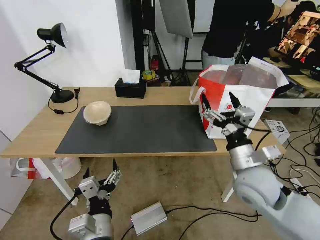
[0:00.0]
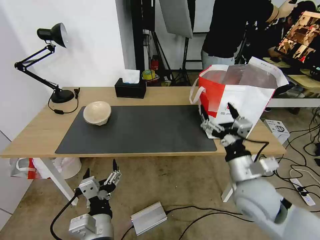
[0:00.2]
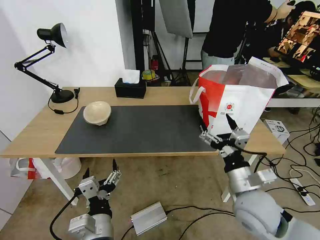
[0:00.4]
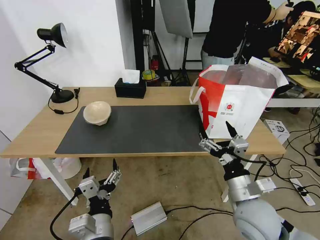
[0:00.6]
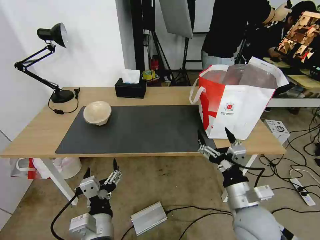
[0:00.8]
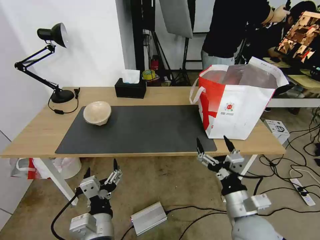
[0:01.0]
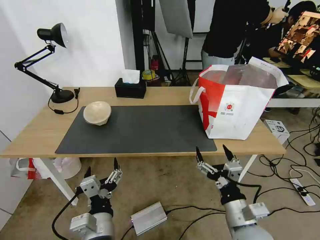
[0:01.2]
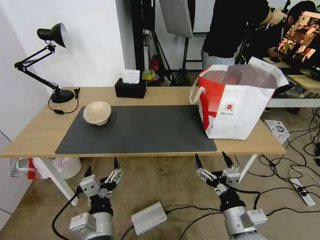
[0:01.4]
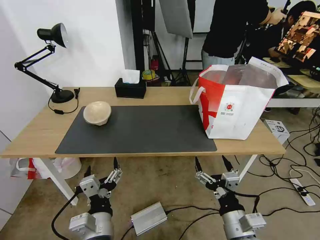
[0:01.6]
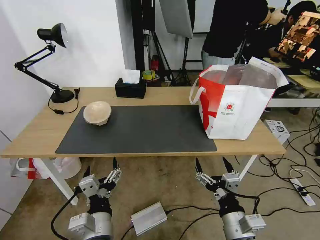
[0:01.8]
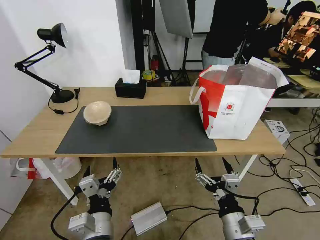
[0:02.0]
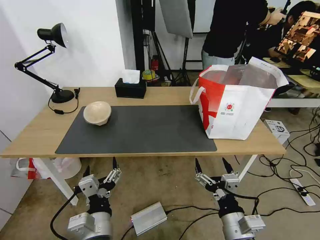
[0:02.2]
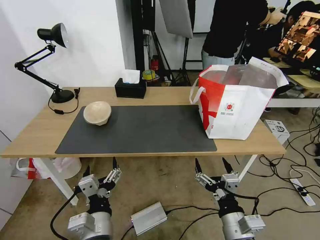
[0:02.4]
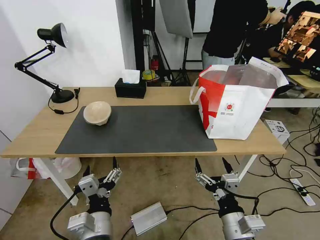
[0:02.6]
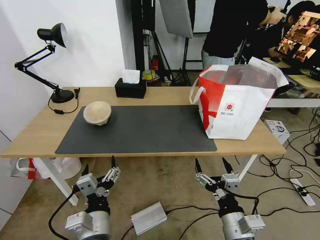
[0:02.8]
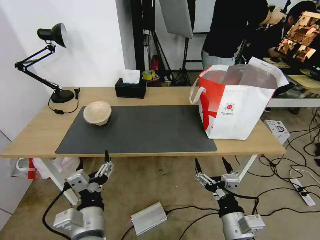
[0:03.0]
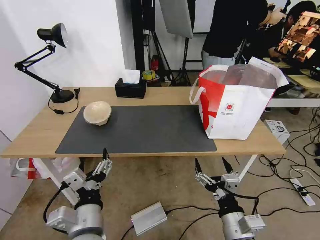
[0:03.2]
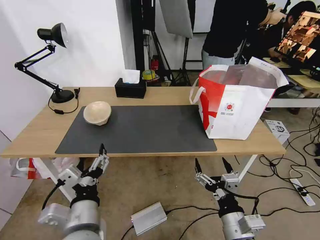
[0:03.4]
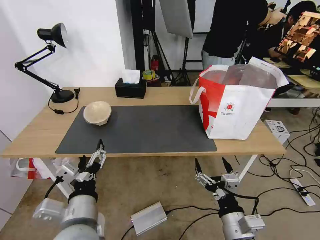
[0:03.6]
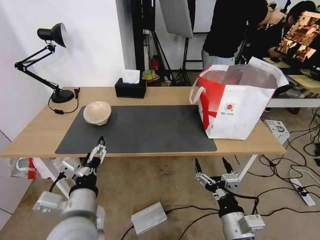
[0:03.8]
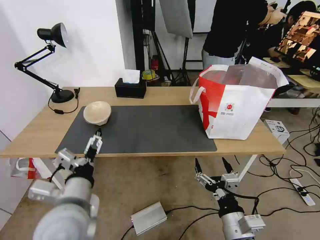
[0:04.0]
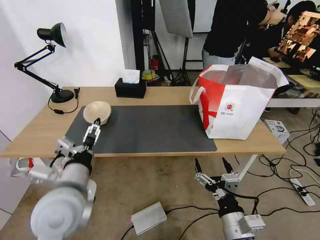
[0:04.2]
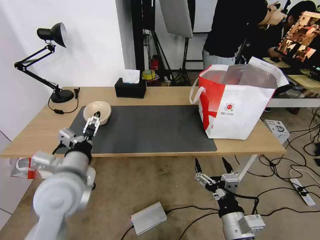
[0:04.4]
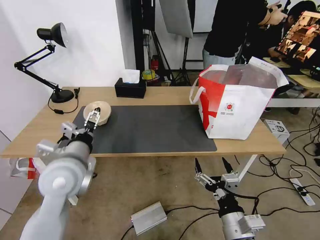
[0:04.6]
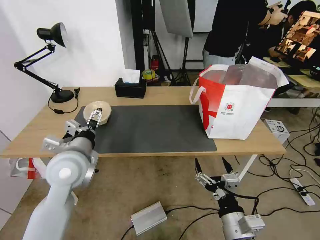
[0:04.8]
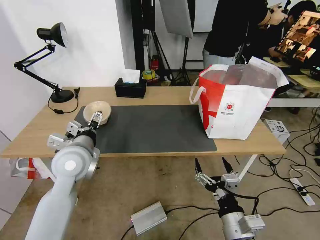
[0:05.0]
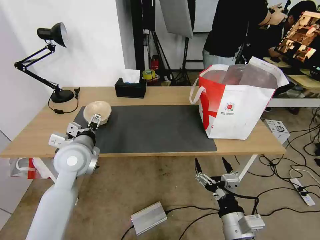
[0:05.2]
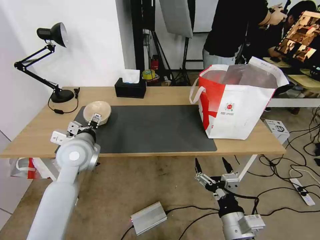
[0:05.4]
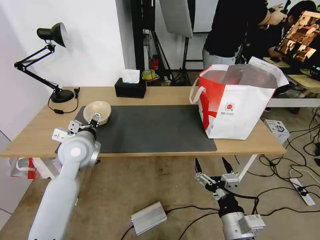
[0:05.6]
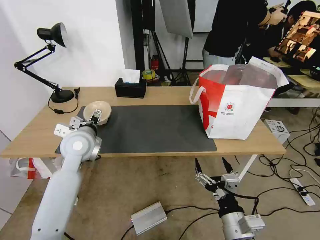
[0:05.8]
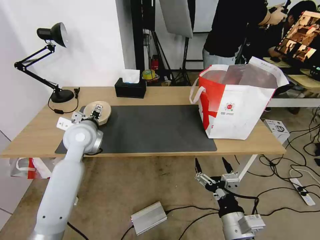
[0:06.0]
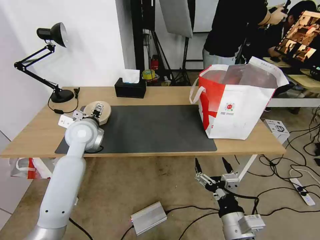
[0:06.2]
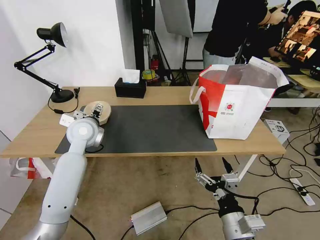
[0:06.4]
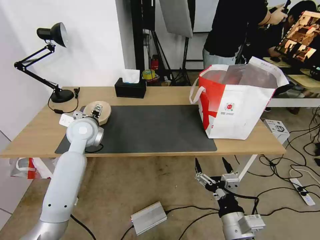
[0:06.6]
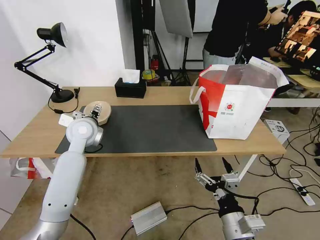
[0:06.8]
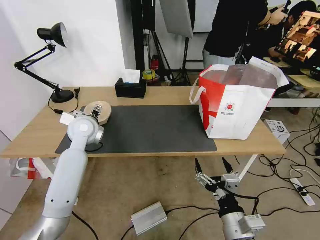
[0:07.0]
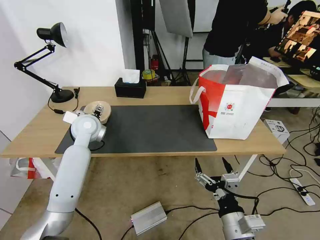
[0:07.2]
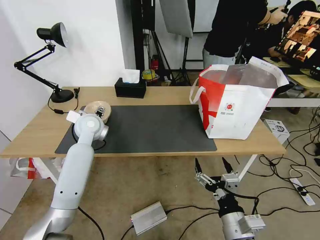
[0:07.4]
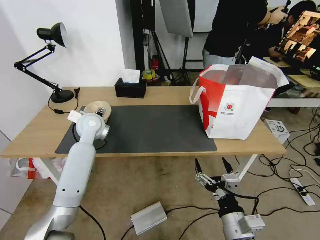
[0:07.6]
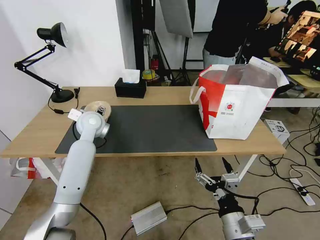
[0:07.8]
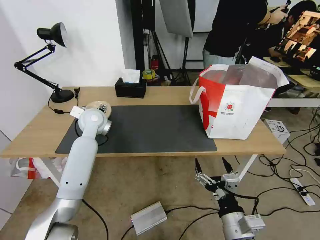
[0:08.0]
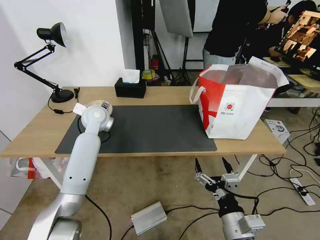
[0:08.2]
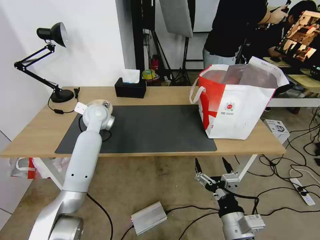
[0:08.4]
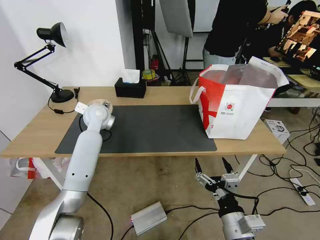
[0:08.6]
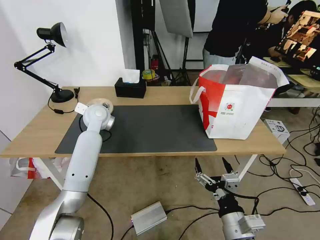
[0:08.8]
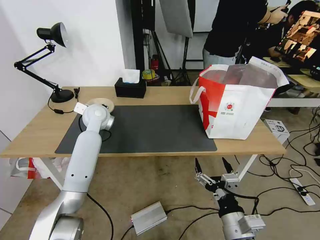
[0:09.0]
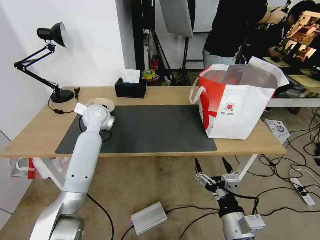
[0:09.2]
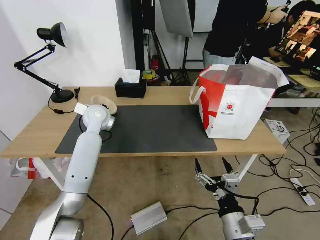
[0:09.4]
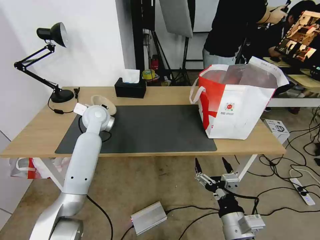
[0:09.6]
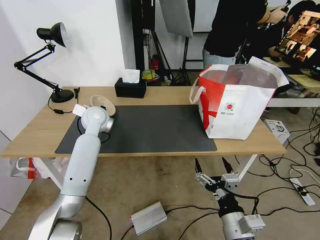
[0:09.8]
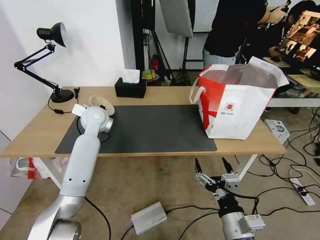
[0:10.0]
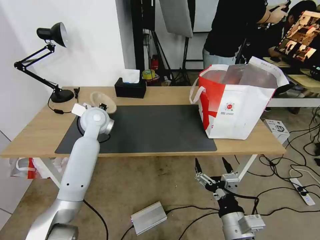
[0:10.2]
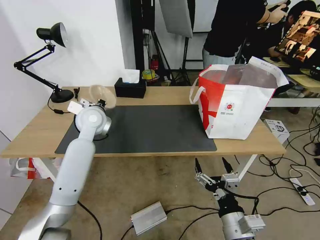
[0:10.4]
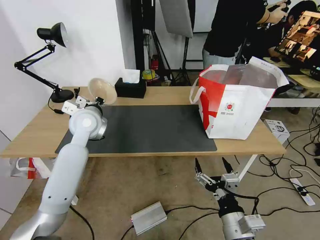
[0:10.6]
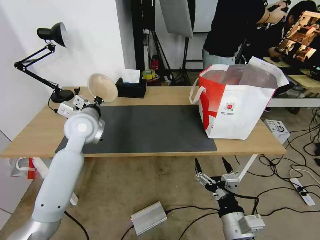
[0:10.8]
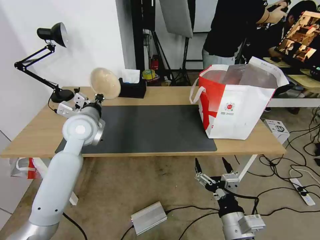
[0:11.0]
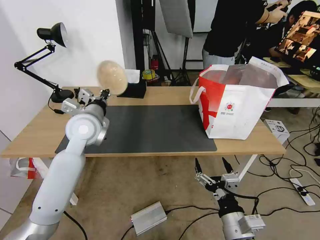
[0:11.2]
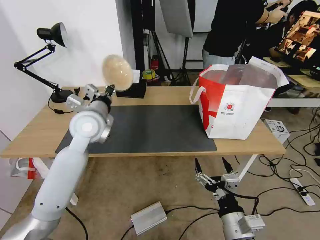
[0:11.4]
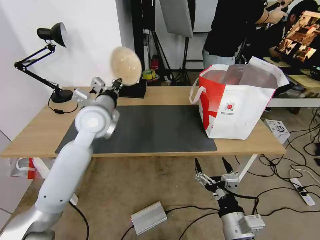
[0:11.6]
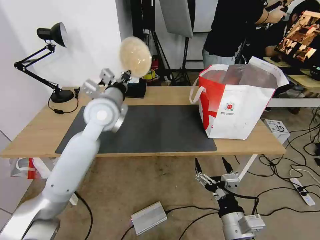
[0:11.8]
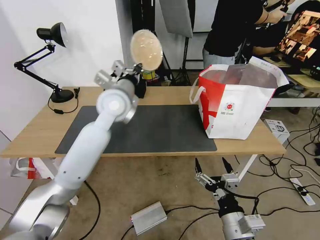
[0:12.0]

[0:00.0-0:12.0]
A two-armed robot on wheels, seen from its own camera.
Task of the whole recording: Pick up the trash from the table and place it into the takeout bag.
0:00.0 to 0:01.6: The right gripper shifts roughly 15 cm backward and downward.
0:01.6 to 0:03.0: The grippers move only a little.
0:03.0 to 0:04.4: The left gripper shifts roughly 15 cm forward, upward and to the left.
0:04.4 to 0:06.0: The left gripper heads forward, covering about 15 cm.
0:06.0 to 0:07.6: The left gripper moves forward, approximately 5 cm.
0:07.6 to 0:09.0: The left gripper closes.
0:09.0 to 0:10.4: The left gripper shifts by approximately 5 cm, and closes its fingers.
0:10.4 to 0:12.0: The left gripper moves to the right and upward, roughly 10 cm.

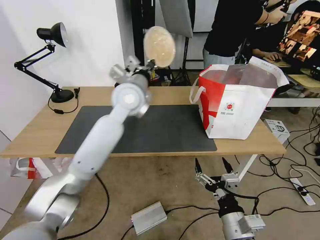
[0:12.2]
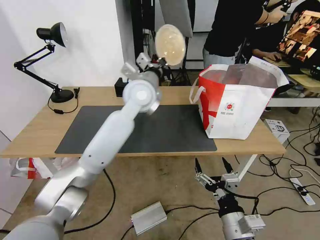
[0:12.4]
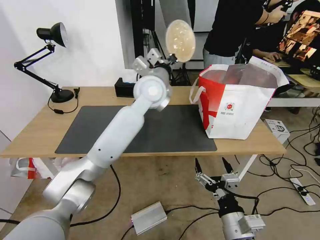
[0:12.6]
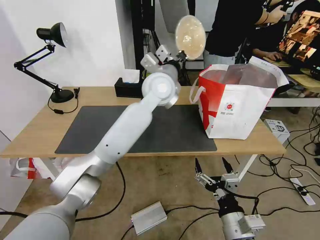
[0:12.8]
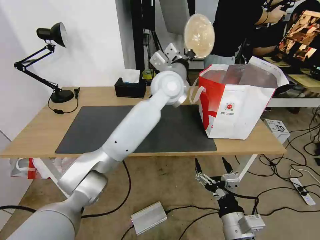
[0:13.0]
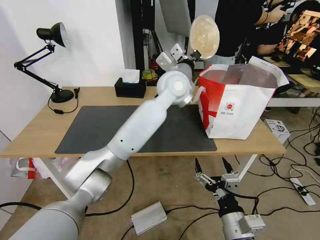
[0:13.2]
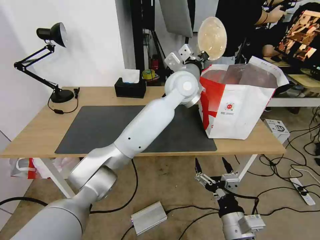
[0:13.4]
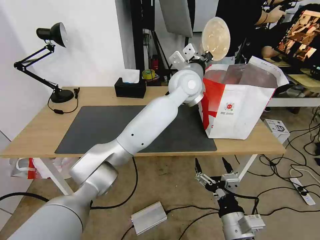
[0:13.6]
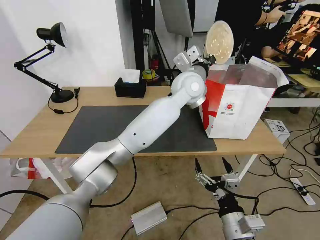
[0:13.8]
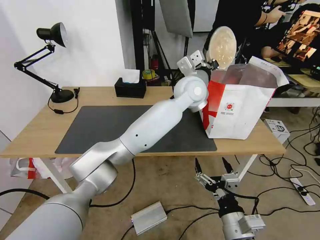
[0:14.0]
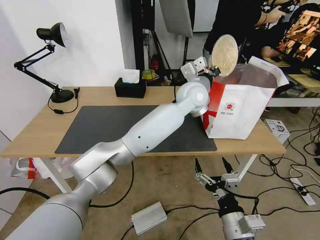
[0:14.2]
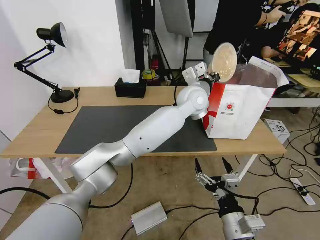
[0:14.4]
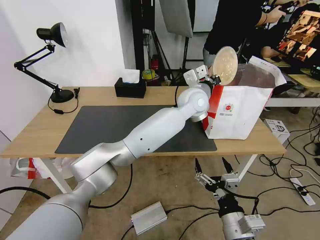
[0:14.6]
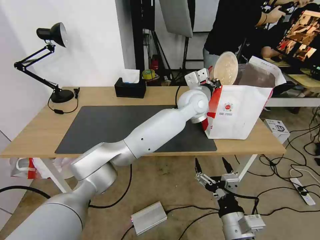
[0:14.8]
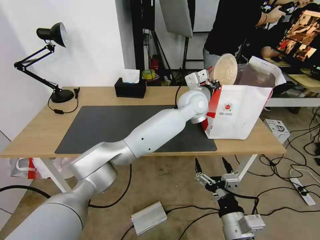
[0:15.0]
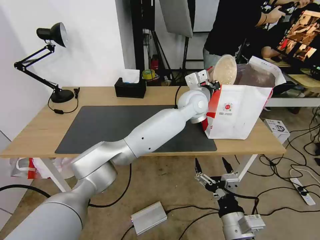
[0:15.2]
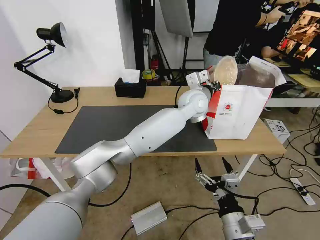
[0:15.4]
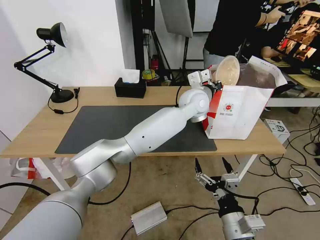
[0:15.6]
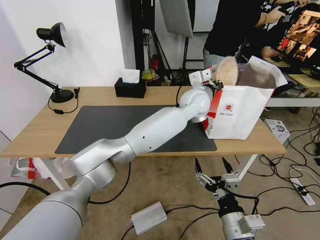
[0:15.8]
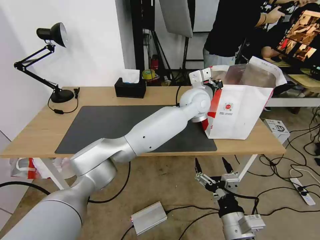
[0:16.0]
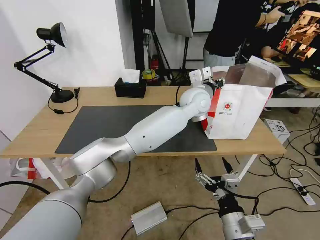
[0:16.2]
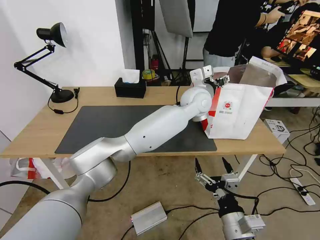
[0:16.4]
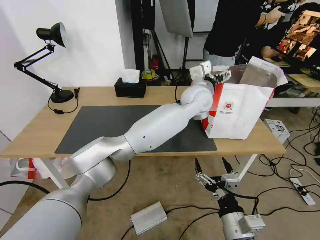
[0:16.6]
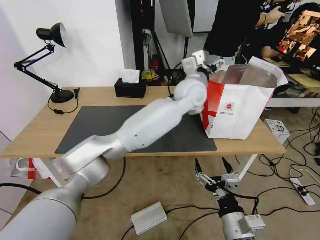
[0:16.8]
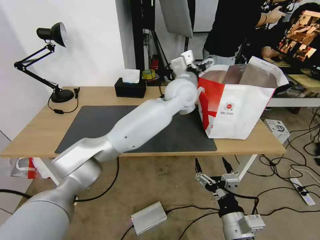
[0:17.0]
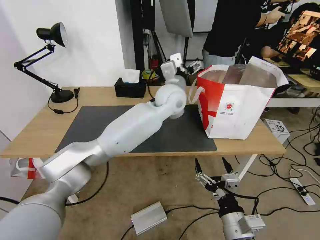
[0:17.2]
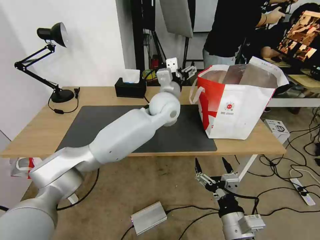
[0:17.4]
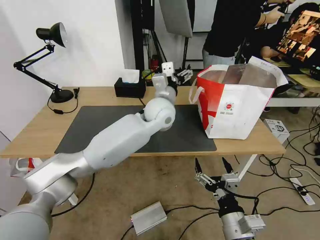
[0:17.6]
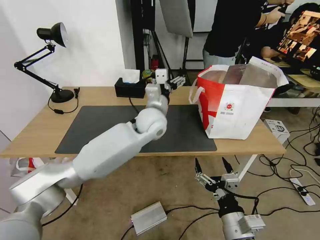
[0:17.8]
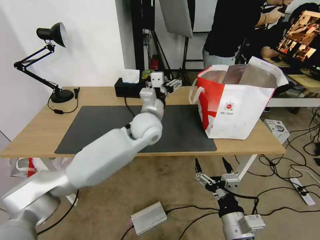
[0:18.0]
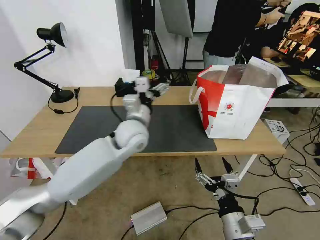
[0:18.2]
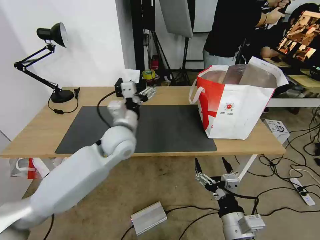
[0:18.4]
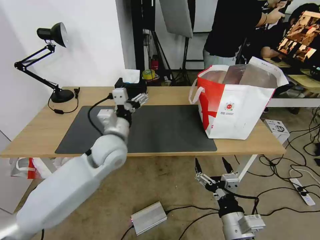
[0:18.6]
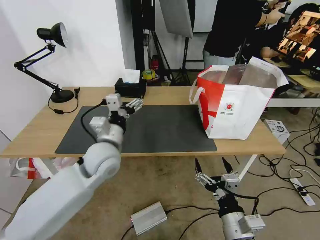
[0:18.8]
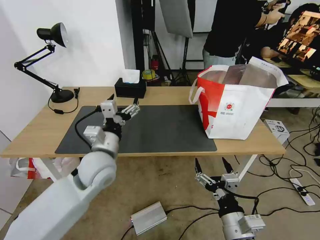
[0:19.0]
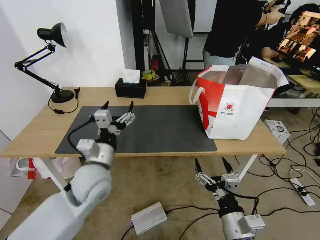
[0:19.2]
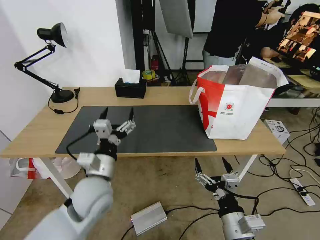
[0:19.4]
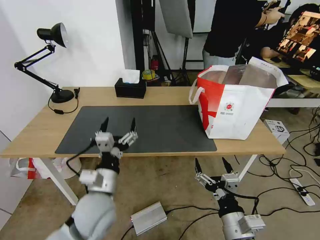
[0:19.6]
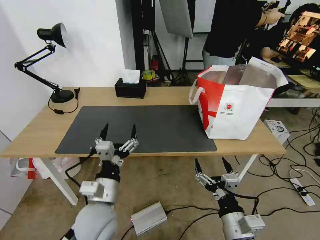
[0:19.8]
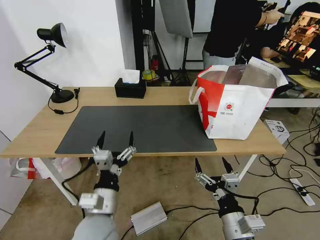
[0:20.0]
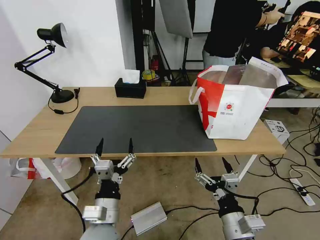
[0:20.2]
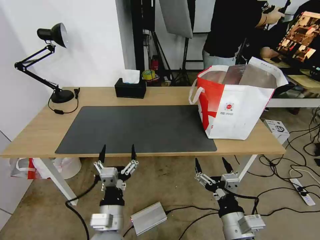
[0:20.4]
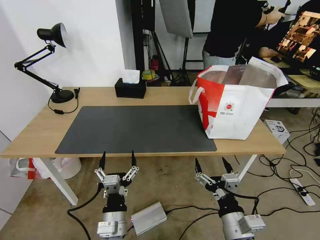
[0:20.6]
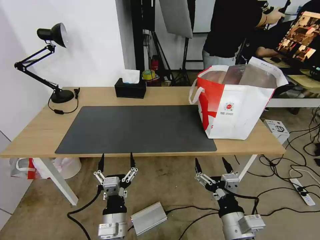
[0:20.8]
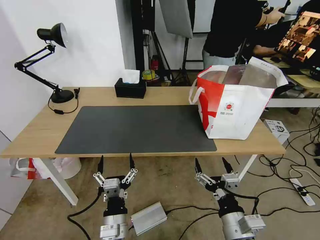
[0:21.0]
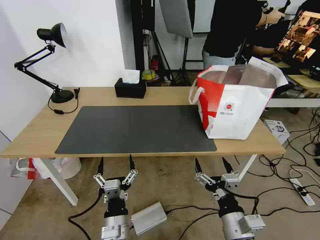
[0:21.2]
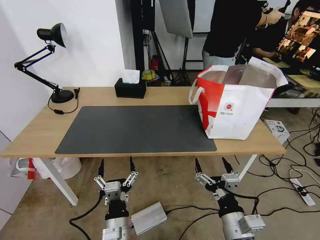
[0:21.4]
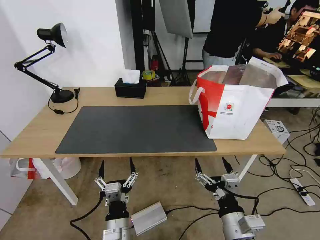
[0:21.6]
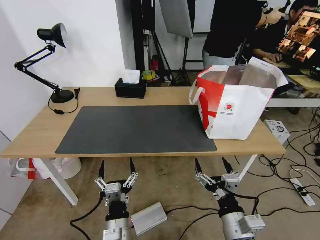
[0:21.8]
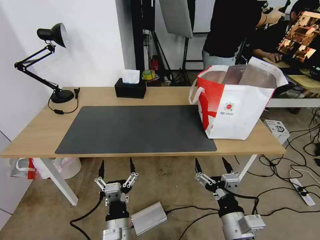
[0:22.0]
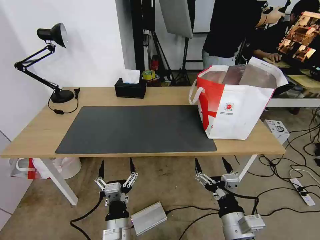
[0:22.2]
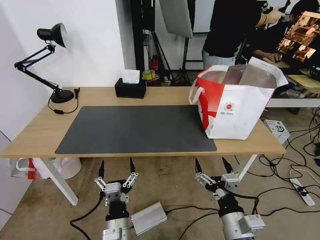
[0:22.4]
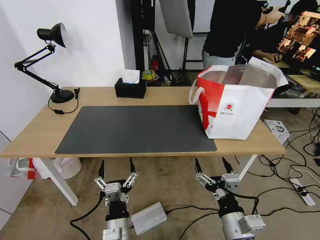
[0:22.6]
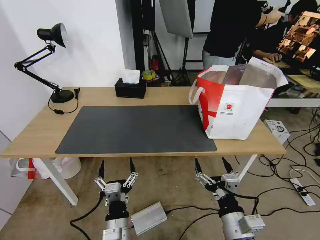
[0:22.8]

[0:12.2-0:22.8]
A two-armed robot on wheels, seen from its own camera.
Task of the whole recording: Pick up the trash from the table and place it into the takeout bag.
0:12.2 to 0:13.8: The left gripper goes about 20 cm to the right.
0:13.8 to 0:15.2: The left gripper shifts some 5 cm downward.
0:15.2 to 0:16.8: The left gripper opens its fingers.
0:16.8 to 0:18.2: The left gripper moves to the left, backward and downward, some 20 cm.
0:18.2 to 0:19.8: The left gripper is displaced backward and downward by approximately 25 cm.
0:19.8 to 0:21.2: The left gripper goes some 10 cm downward and backward.
0:21.2 to 0:22.8: The two grippers keep their place.
